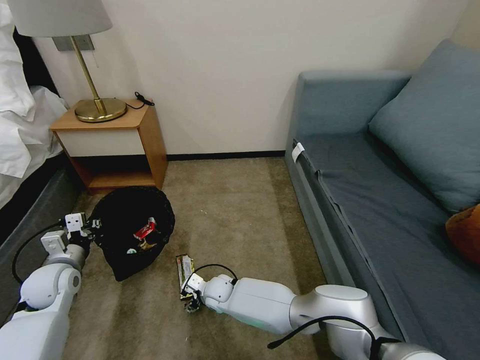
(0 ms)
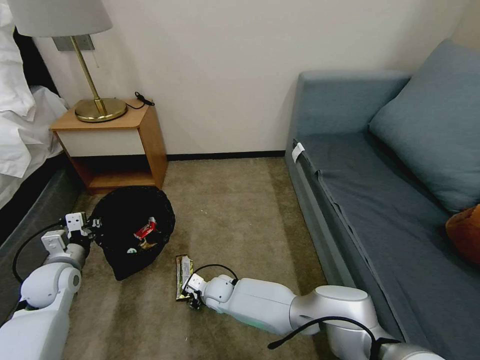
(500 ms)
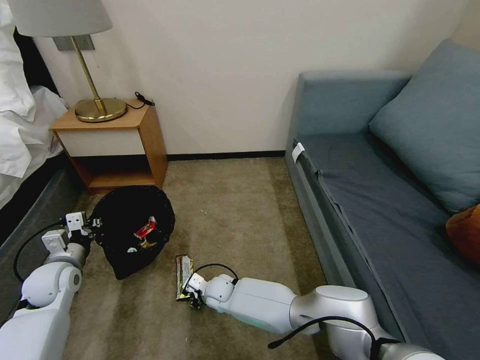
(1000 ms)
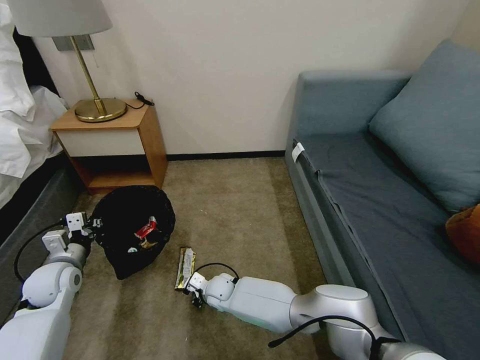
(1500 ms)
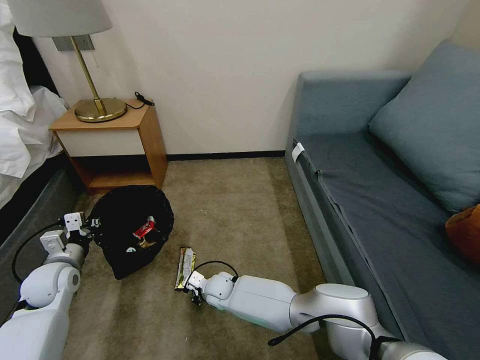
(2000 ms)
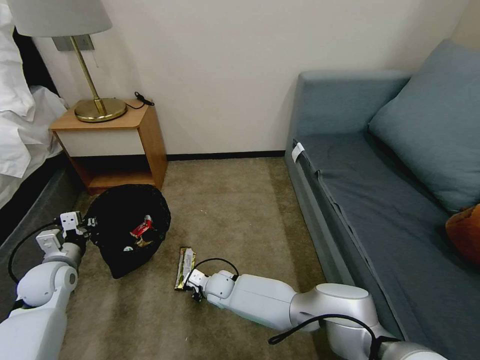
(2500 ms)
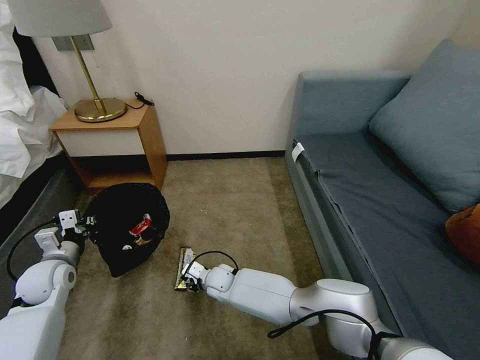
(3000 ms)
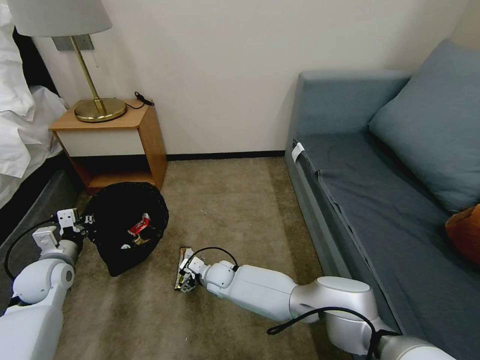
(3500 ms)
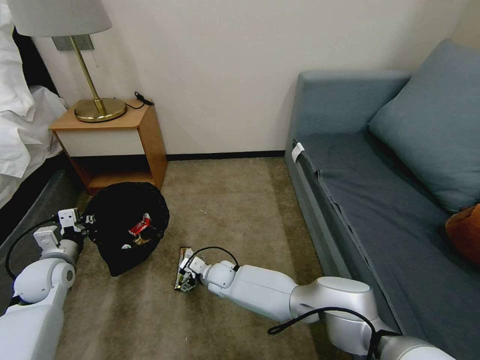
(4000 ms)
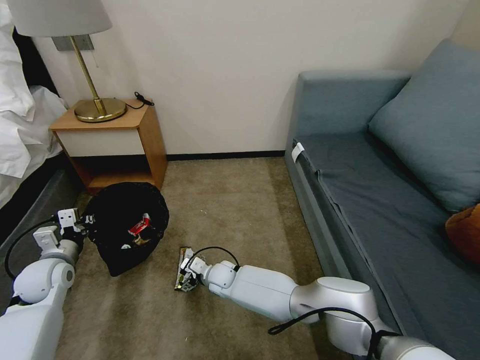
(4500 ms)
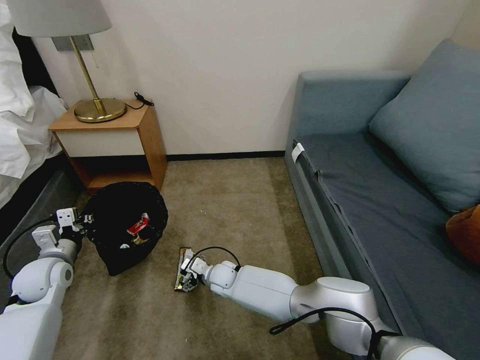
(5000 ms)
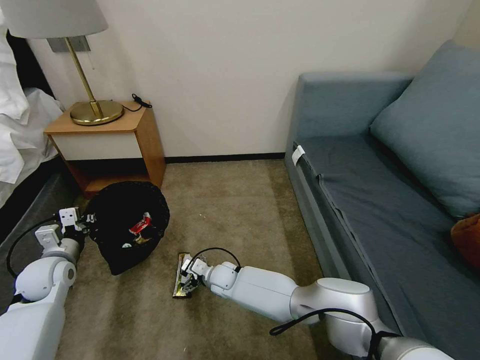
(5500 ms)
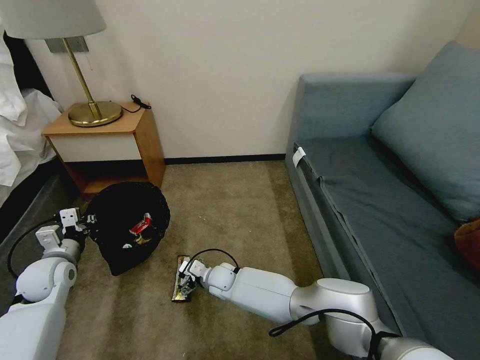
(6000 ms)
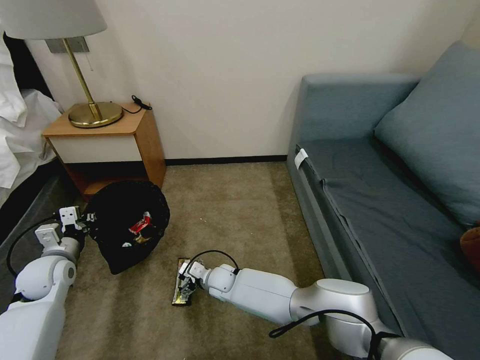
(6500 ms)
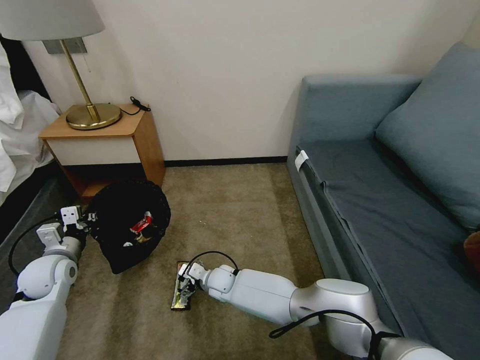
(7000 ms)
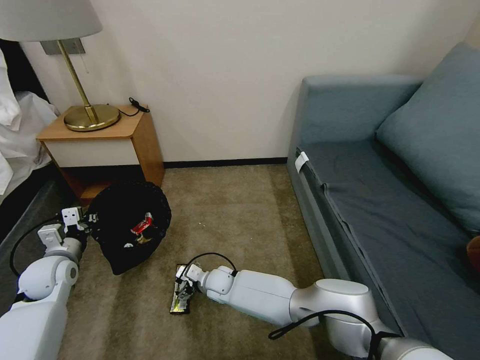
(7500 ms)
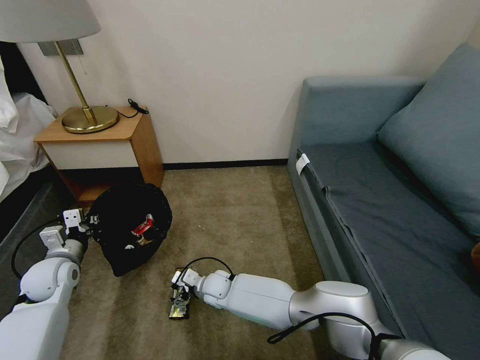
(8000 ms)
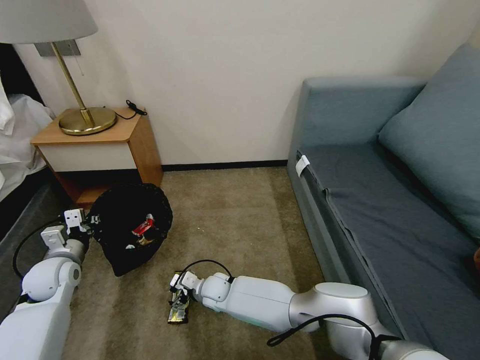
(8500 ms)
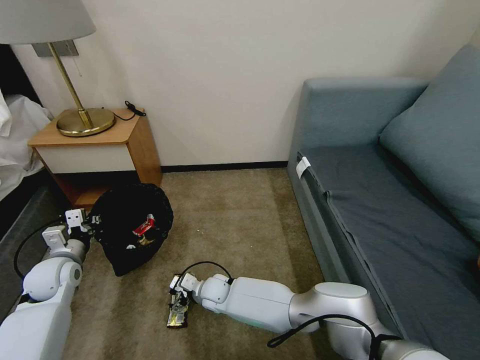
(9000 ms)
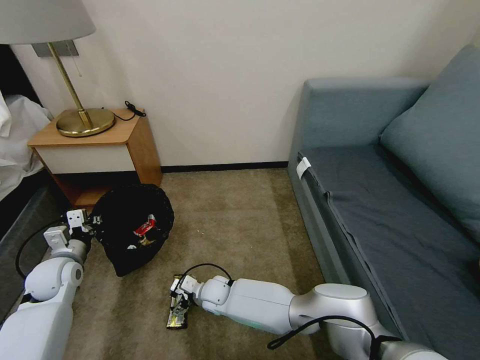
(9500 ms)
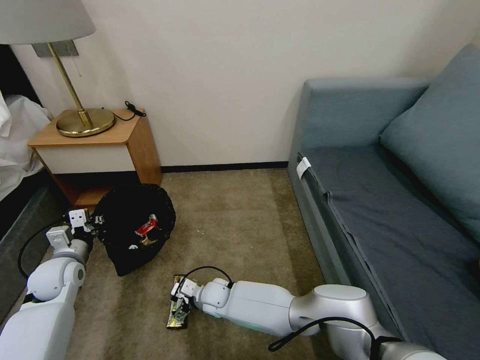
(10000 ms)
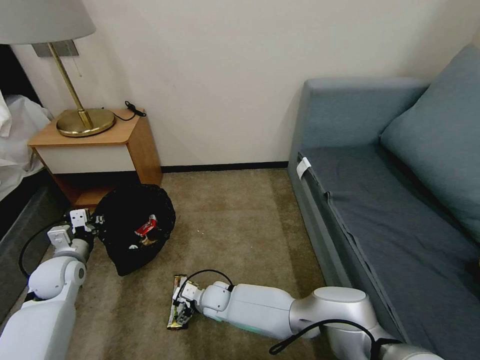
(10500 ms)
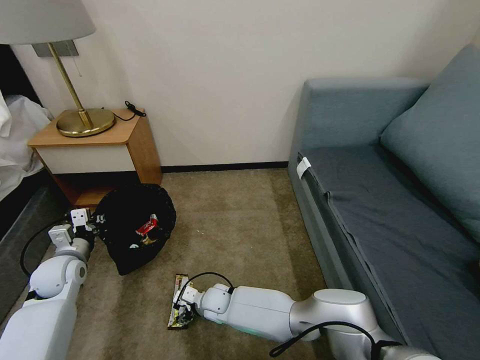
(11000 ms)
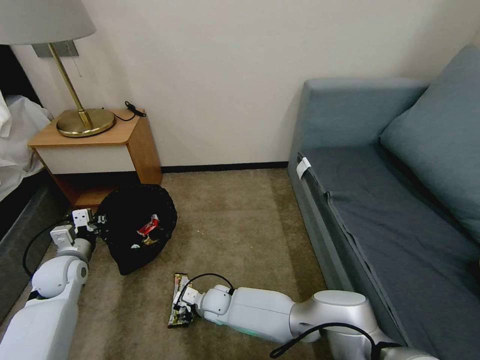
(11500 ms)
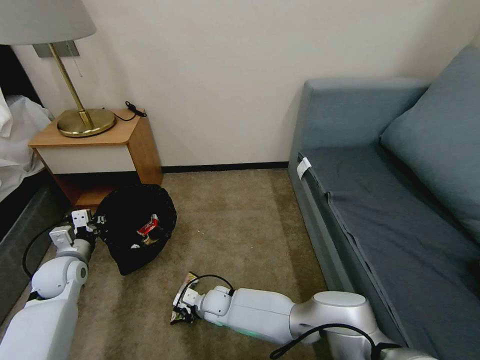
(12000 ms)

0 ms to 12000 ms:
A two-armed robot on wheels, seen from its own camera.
Task of the whole recording: Pick up the trash bin, then pick up the garbage on the floor and place it into the trash bin.
0 ms to 2000 ms: The right gripper closes up.
2000 ms to 4000 ms: The right gripper opens.
4000 ms to 6000 ms: Both grippers stay put.
6000 ms to 10000 ms: The grippers make only small movements.
10000 ms to 12000 ms: The right gripper closes up.

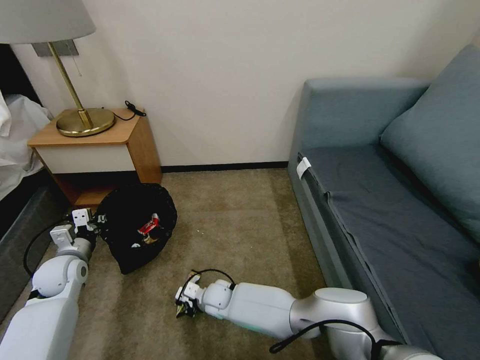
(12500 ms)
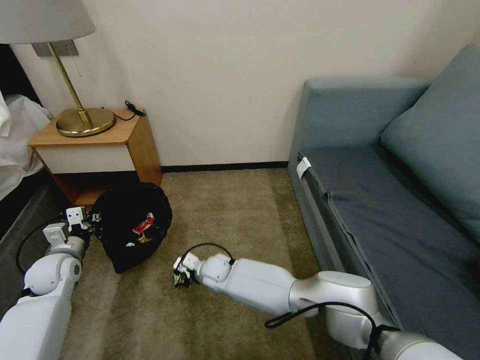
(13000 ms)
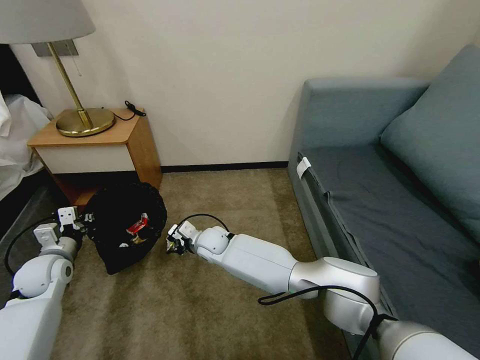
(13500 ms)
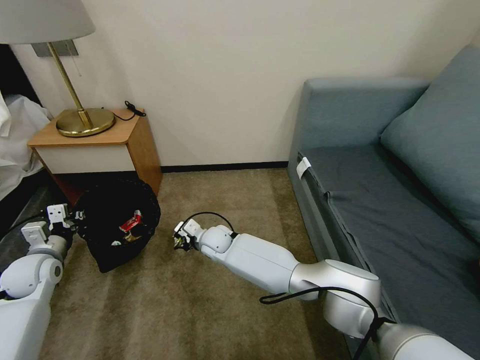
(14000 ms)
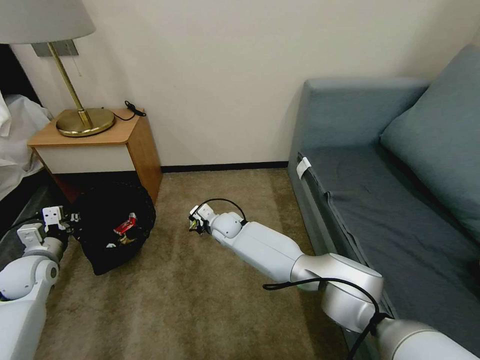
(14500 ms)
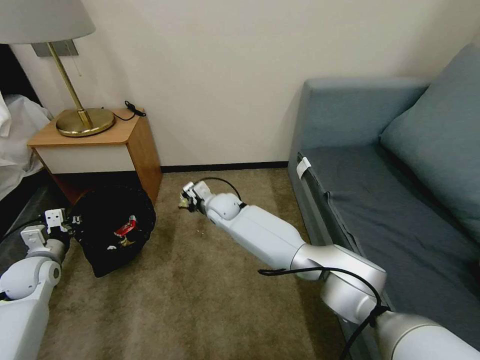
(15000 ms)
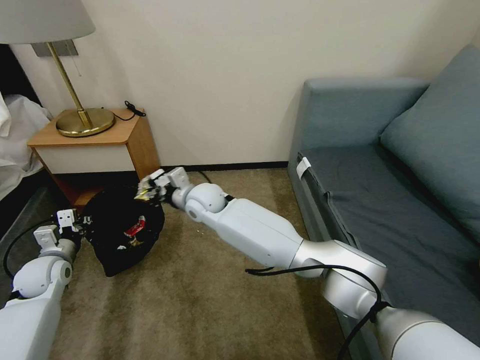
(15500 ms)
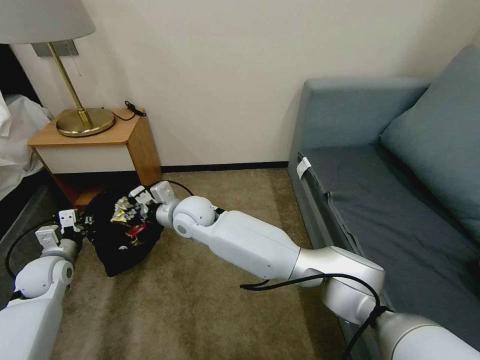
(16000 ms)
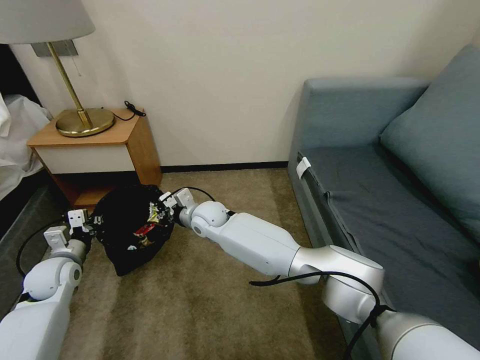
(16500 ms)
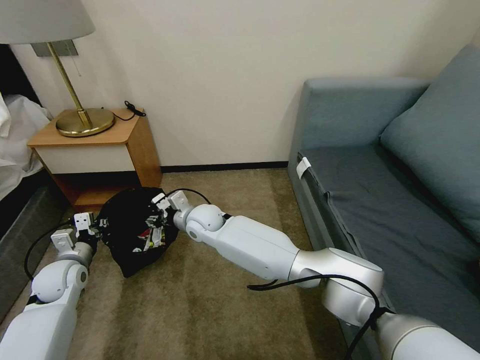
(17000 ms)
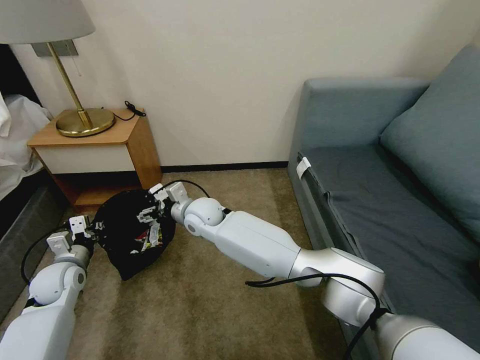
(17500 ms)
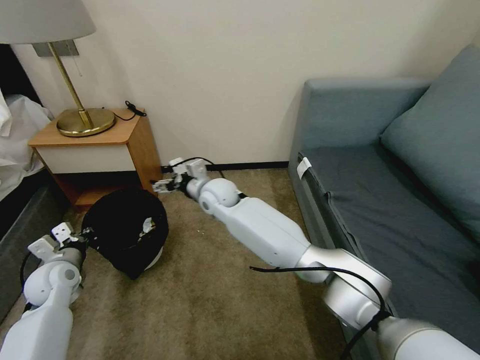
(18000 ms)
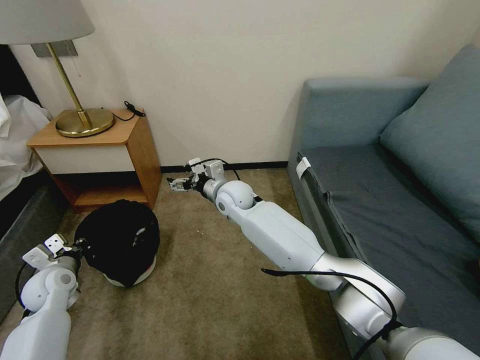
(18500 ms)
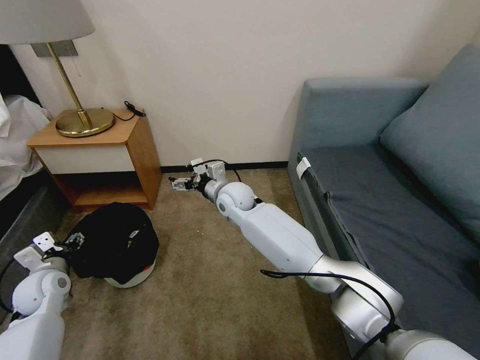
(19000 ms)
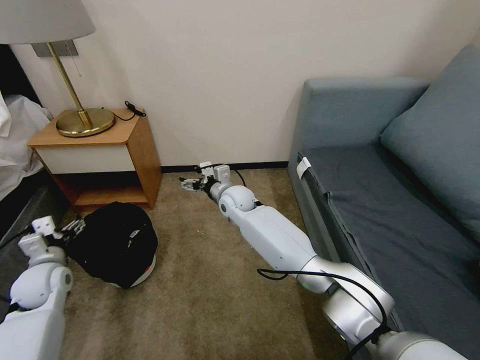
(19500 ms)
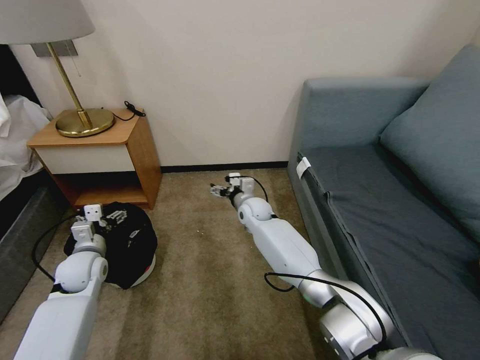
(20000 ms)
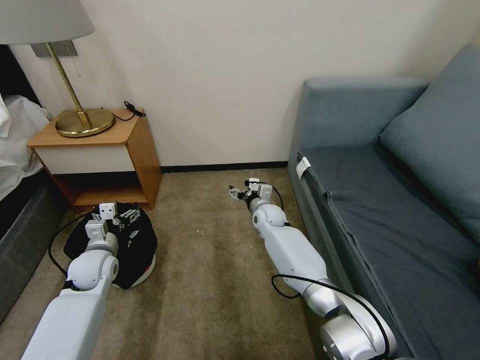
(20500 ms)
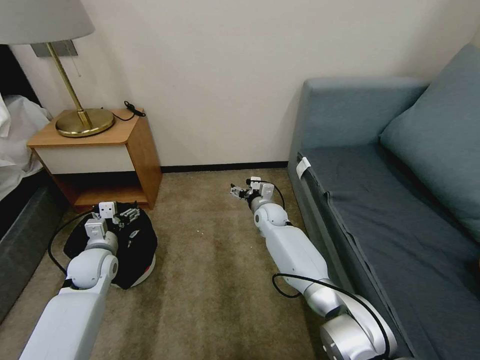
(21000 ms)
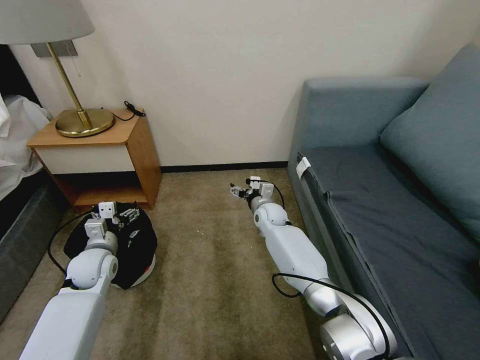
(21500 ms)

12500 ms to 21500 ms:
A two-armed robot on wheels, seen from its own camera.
Task of the whole recording: Pick up the trash bin, then pick up the garbage on the floor and place it into the trash bin.
12500 ms to 14500 ms: The left gripper moves to the left, roughly 5 cm. The right gripper shifts some 20 cm forward and upward.
14500 ms to 17000 ms: The right gripper is displaced upward and to the left by some 10 cm, and opens its fingers. Meanwhile the left gripper heads to the right, covering approximately 5 cm.
17000 ms to 19500 ms: The right gripper shifts about 10 cm to the right and forward, and opens. The left gripper opens up.
19500 ms to 21500 ms: The right gripper shifts some 15 cm to the right and downward; the left gripper travels to the right by about 10 cm.

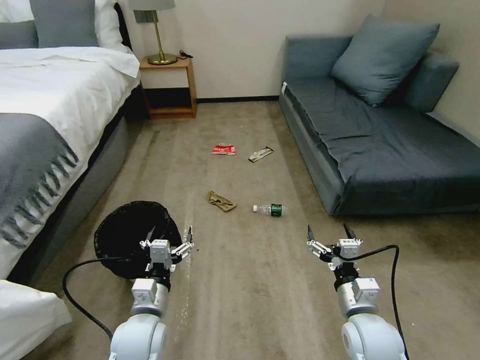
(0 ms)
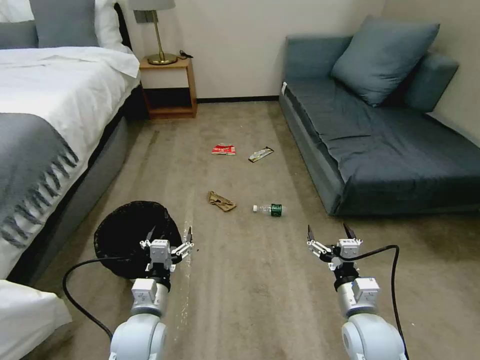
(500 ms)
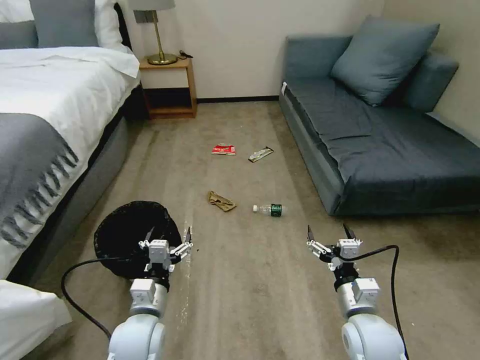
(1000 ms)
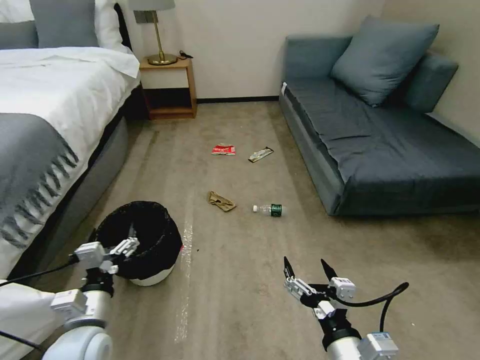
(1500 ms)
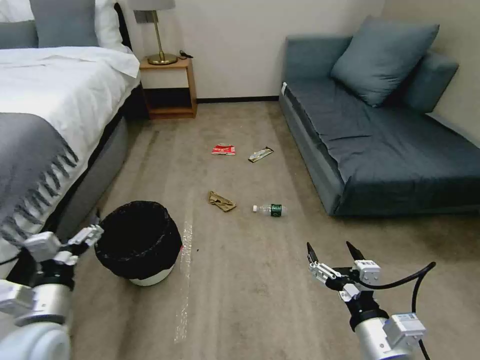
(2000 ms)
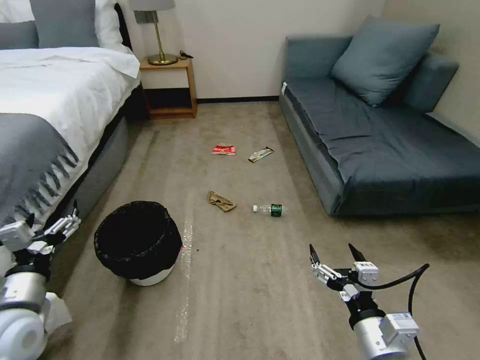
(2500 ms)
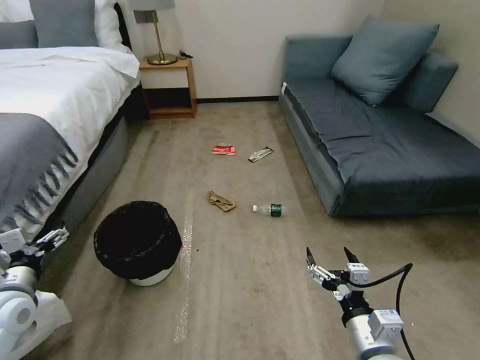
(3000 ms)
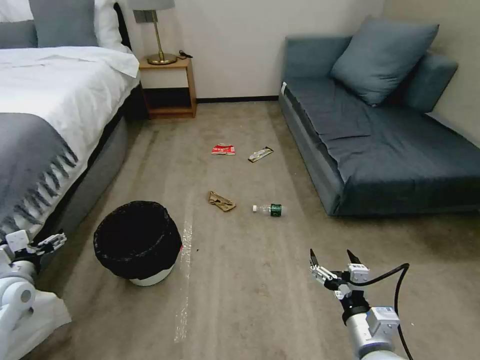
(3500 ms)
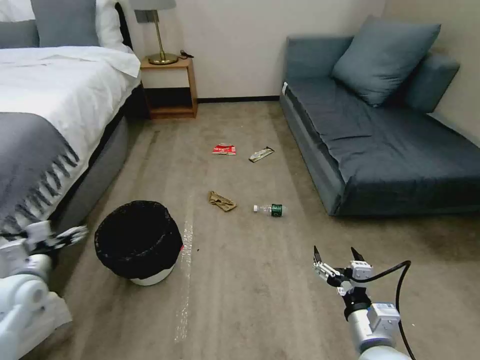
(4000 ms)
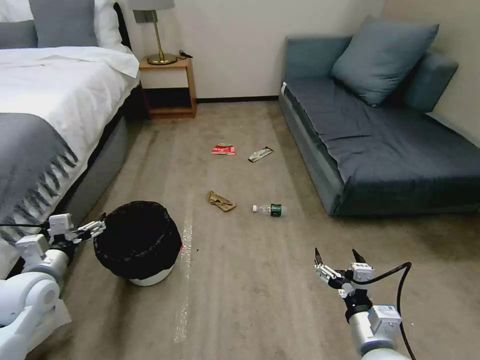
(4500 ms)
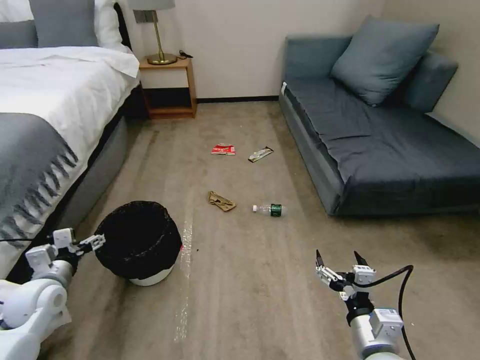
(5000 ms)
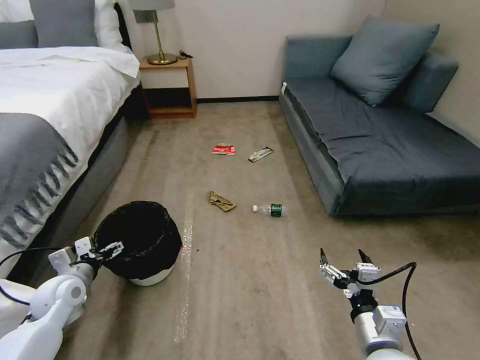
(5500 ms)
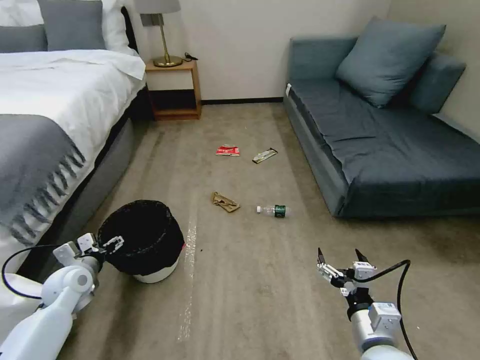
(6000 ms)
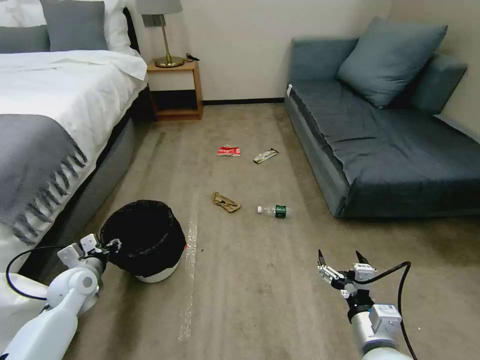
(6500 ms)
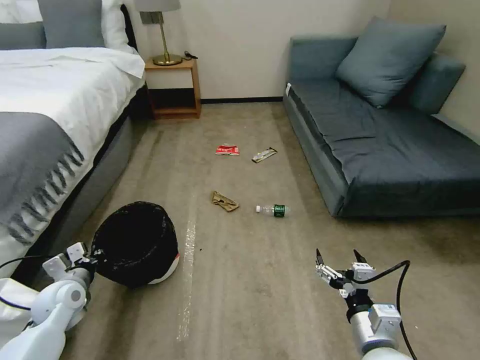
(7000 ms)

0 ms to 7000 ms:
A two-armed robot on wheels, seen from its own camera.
Task of the whole recording: Pick up the trash bin, then pick up the garbage on the floor and place it into the trash bin.
2000 ms to 3500 ms: The left gripper moves to the left and forward, about 15 cm. Meanwhile the right gripper goes some 5 cm downward.
3500 ms to 5000 ms: The left gripper is displaced to the right by some 5 cm.
5000 ms to 7000 ms: The left gripper moves downward, some 5 cm, and closes up.
